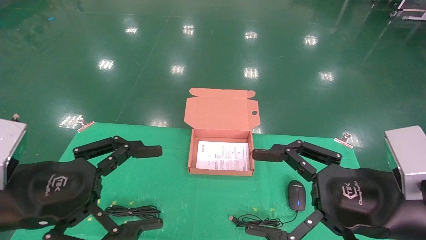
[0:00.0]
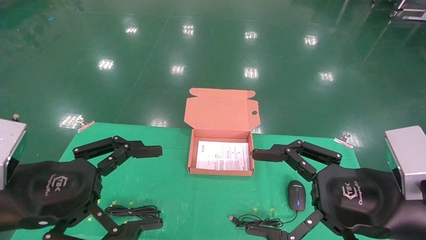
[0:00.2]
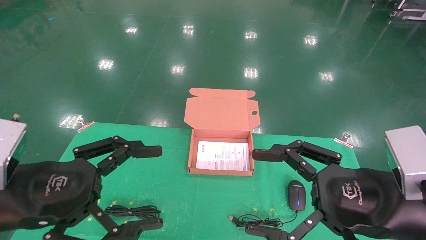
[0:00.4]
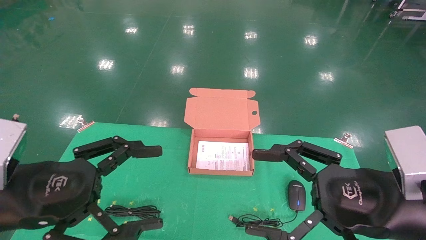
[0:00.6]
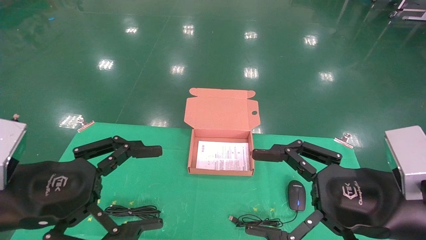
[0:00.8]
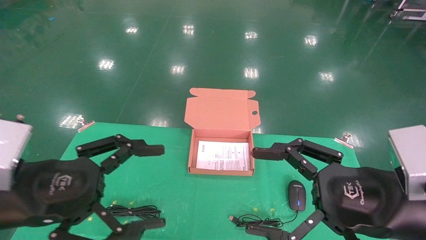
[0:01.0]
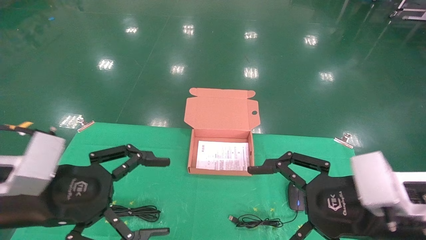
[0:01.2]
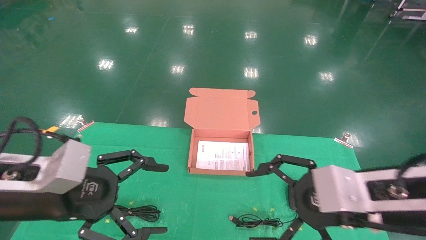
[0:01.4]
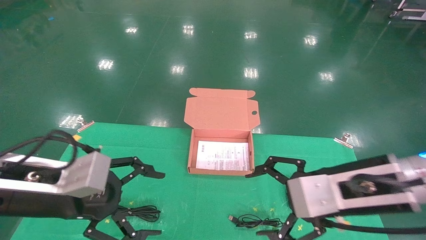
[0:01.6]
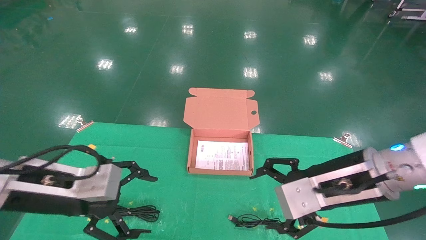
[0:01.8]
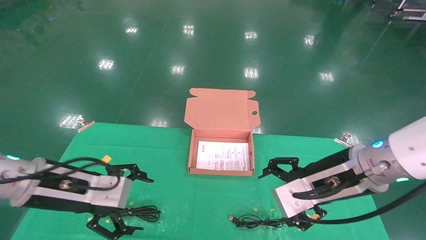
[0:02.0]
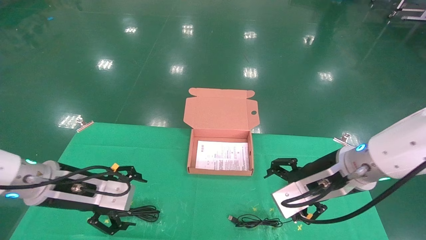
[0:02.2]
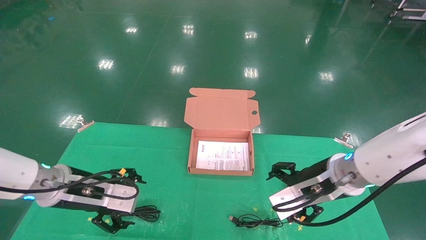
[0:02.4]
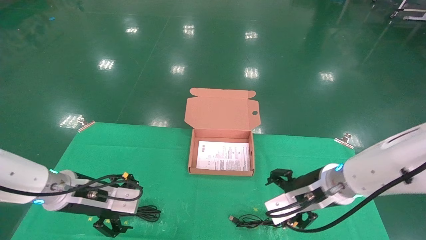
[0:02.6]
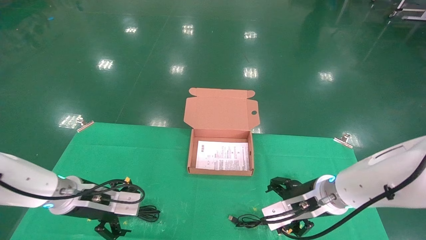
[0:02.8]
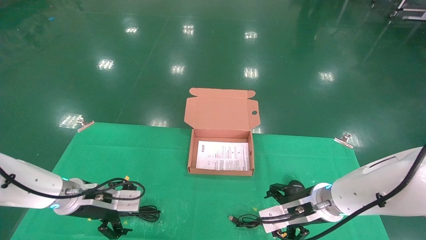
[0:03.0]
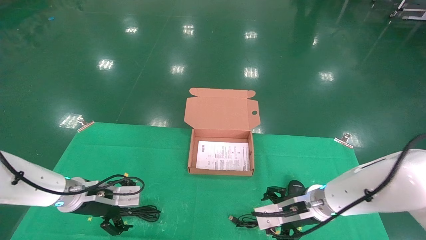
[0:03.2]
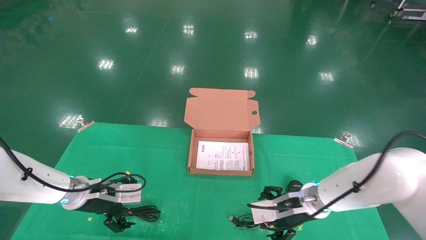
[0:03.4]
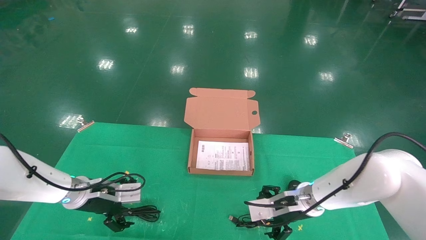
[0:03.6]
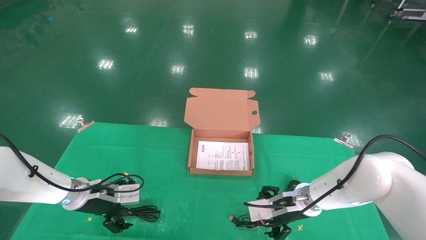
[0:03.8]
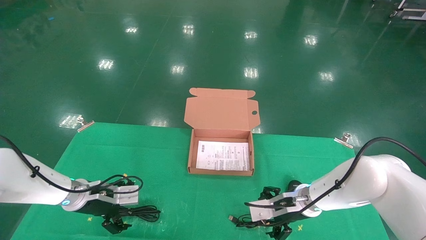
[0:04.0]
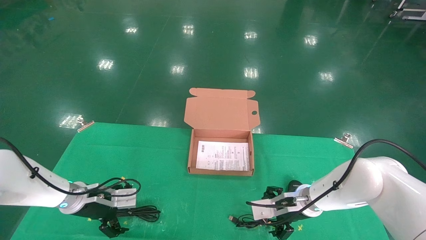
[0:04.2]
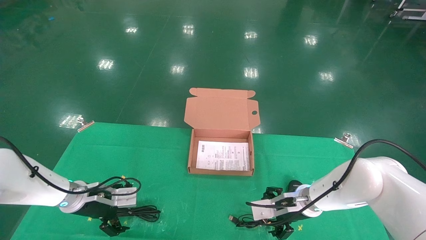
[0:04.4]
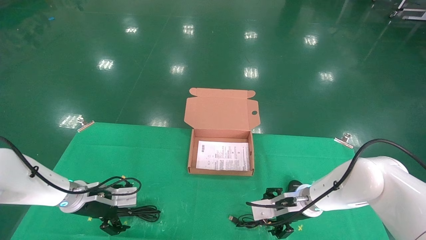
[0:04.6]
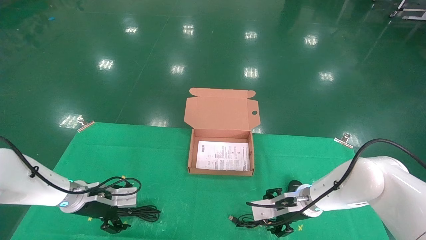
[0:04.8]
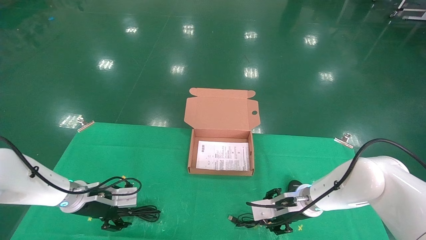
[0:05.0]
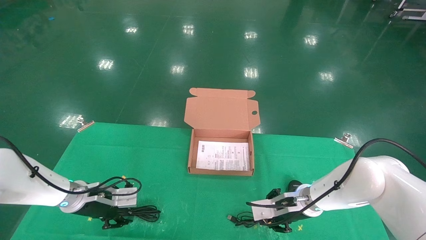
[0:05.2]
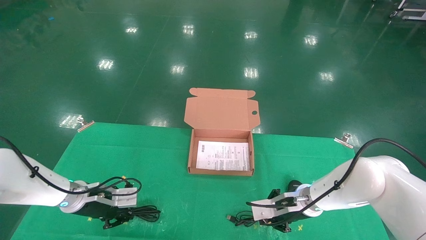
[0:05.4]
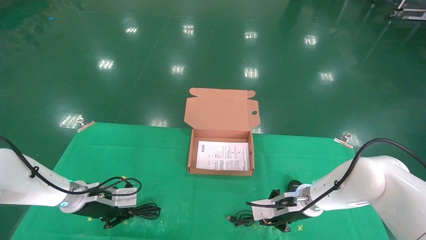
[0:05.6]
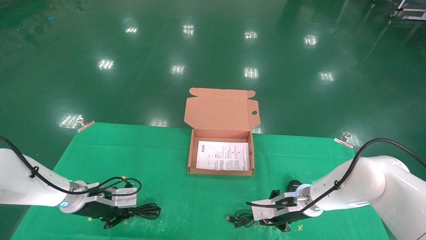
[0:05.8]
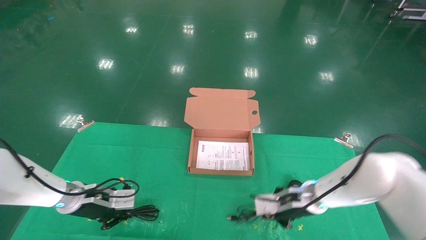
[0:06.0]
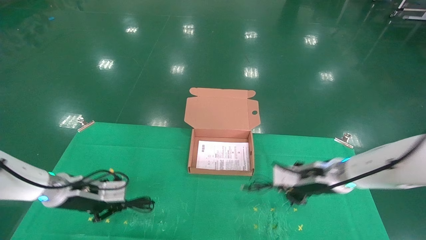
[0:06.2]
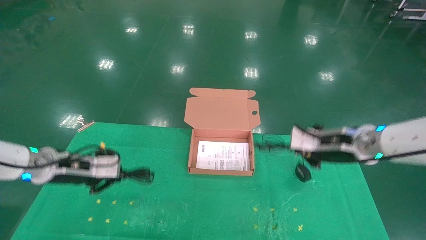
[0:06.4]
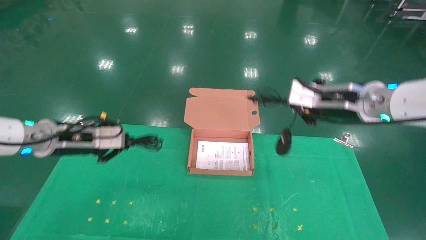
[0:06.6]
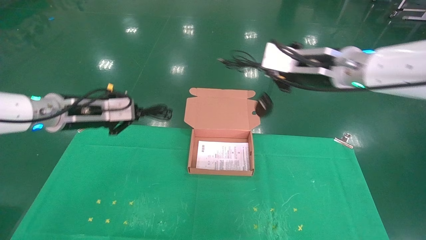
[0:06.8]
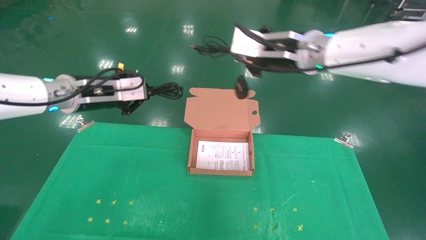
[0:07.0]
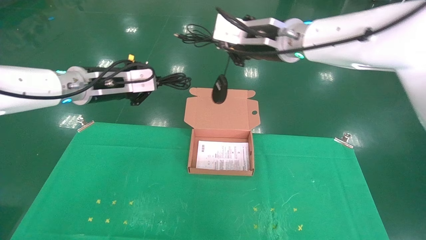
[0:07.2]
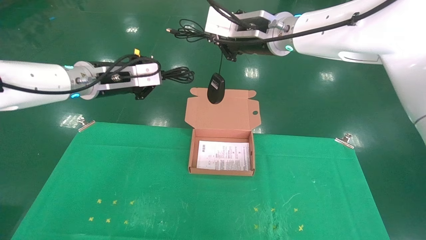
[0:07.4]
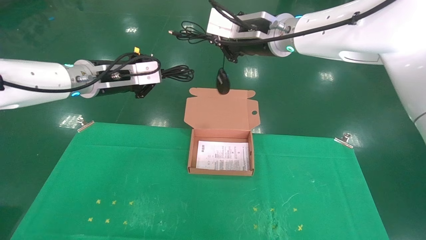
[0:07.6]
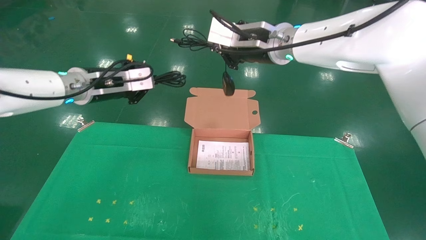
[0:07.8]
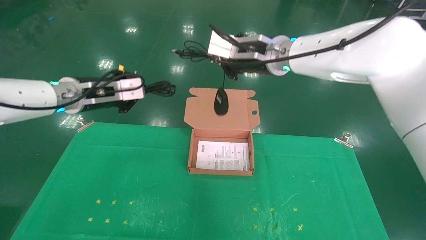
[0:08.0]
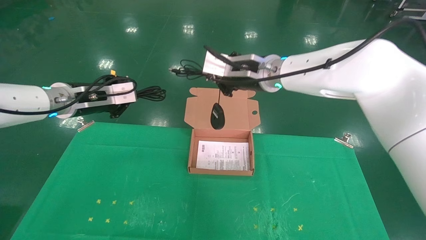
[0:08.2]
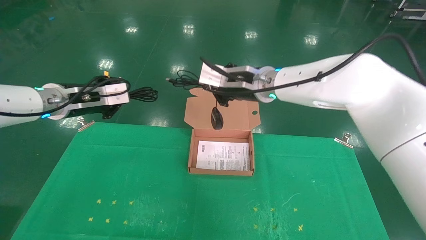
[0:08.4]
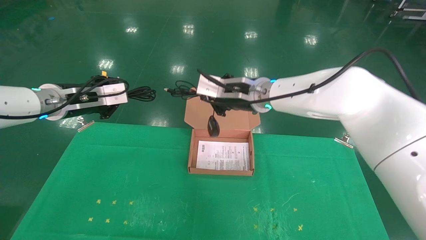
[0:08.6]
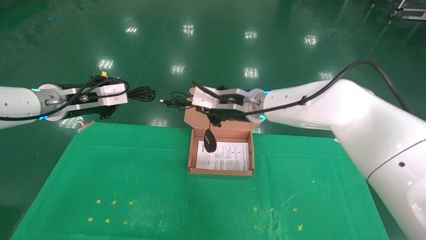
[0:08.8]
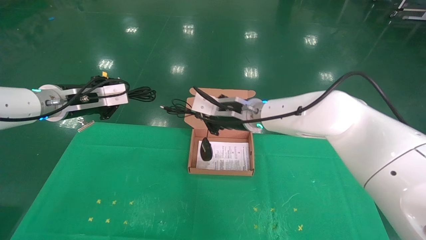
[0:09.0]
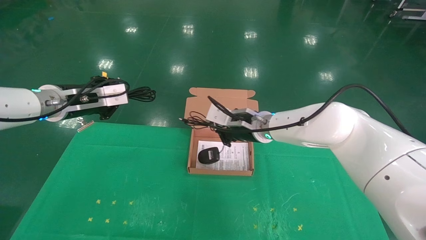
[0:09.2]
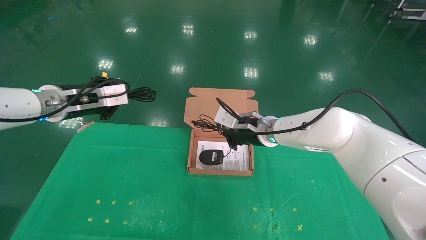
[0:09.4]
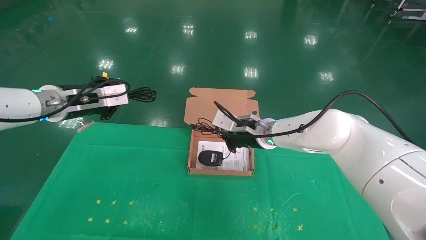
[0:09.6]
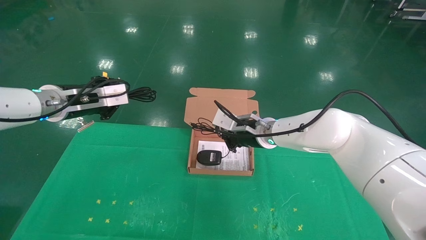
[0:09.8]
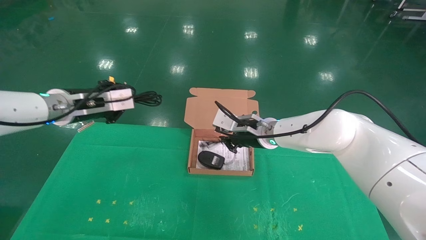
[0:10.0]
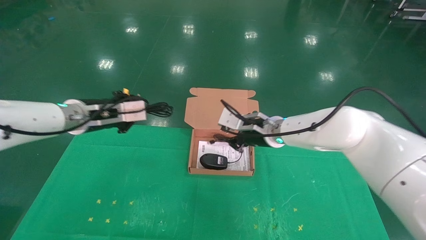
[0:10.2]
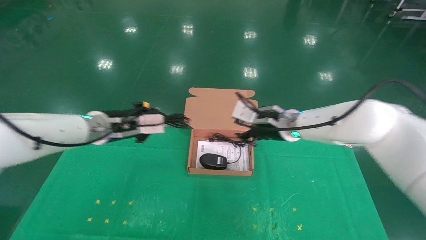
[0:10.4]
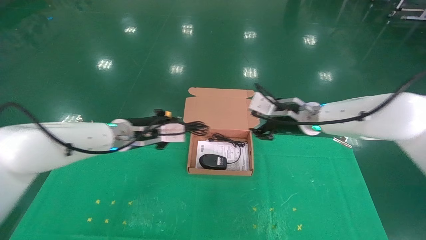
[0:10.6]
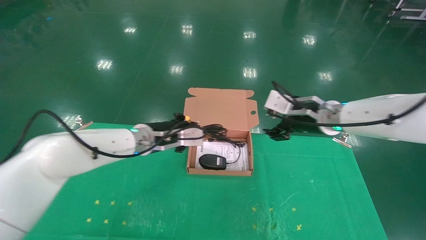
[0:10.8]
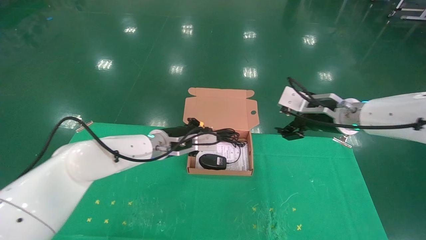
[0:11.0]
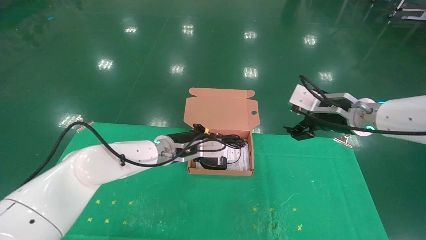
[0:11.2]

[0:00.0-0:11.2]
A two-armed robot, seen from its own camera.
Task of the whole recording: grasp data cable left put into box grasp mouse right put into box.
Step, 0:01.2 to 0:05.8: Grab and pick up both the mouse and power cord from the accessory packaging area at the same time.
0:00.0 to 0:01.6: The right gripper is displaced forward by roughly 5 cm. Meanwhile the left gripper ends up roughly 5 cm from where it was.
0:01.6 to 0:03.2: The left gripper moves forward and downward, about 20 cm; the right gripper moves downward and forward, some 20 cm.
0:03.2 to 0:04.8: The right gripper ends up some 5 cm from where it was. Meanwhile the left gripper shifts by about 5 cm.
0:04.8 to 0:06.4: The right gripper shifts about 20 cm upward, and closes its fingers; the left gripper goes about 10 cm upward, and closes up.
0:06.4 to 0:08.0: The right gripper goes about 20 cm to the left and upward, while the left gripper shifts about 15 cm upward.
0:08.0 to 0:09.6: The right gripper goes roughly 15 cm downward.
0:09.6 to 0:11.2: The left gripper moves to the right and downward, about 25 cm. The right gripper moves to the right and backward, some 20 cm, and opens.

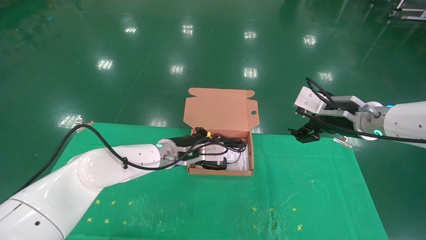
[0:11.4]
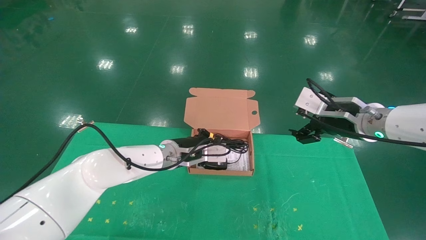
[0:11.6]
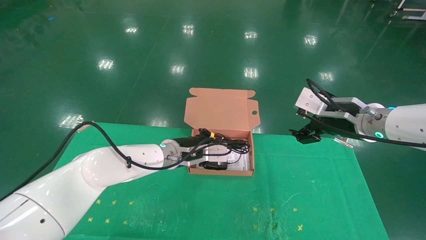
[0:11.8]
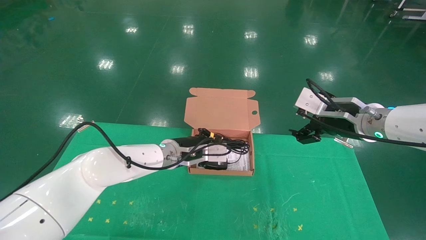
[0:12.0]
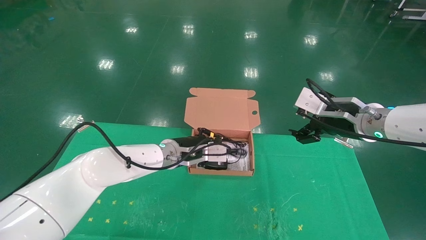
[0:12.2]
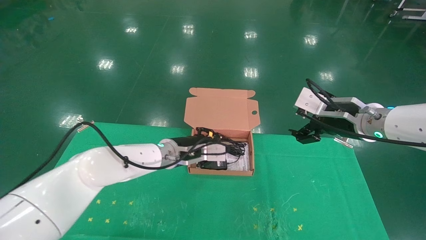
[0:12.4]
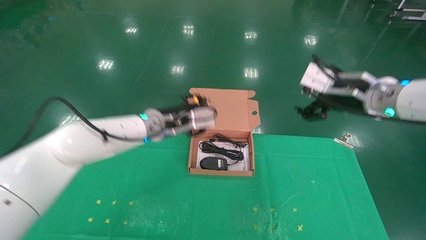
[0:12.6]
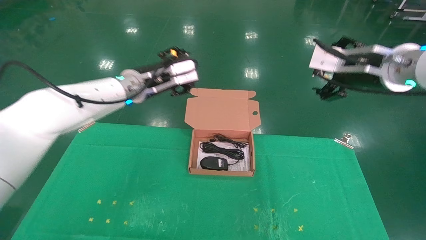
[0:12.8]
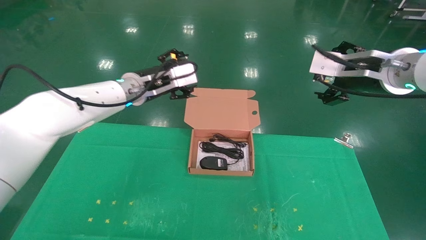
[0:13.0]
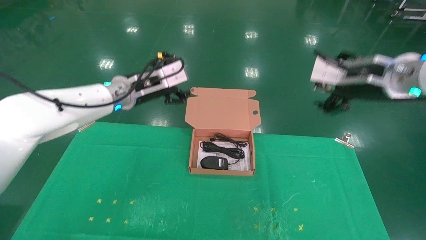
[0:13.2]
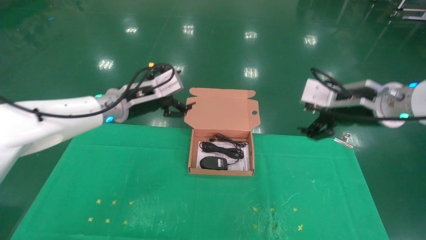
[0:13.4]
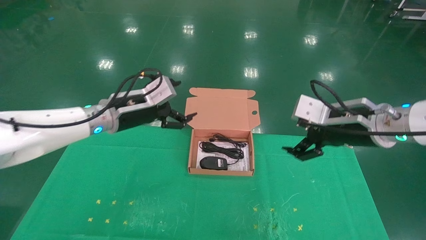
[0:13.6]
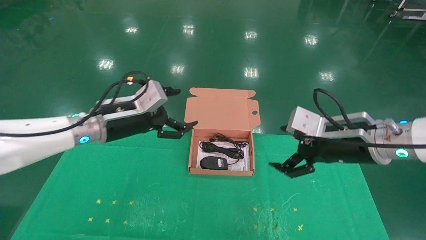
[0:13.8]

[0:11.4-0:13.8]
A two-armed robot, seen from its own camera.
Task of the whole recording: grasp data cable left put into box grasp mouse right put into box.
0:11.4 to 0:12.6: The right gripper goes approximately 5 cm upward. The left gripper shifts approximately 10 cm upward, and opens.
0:12.6 to 0:13.8: The left gripper shifts approximately 10 cm to the left and backward, and opens its fingers. The right gripper heads downward, covering approximately 5 cm.
